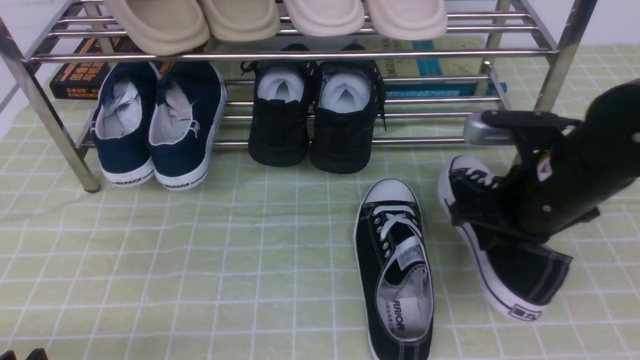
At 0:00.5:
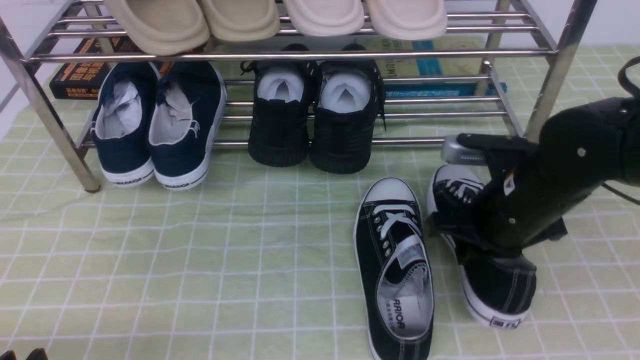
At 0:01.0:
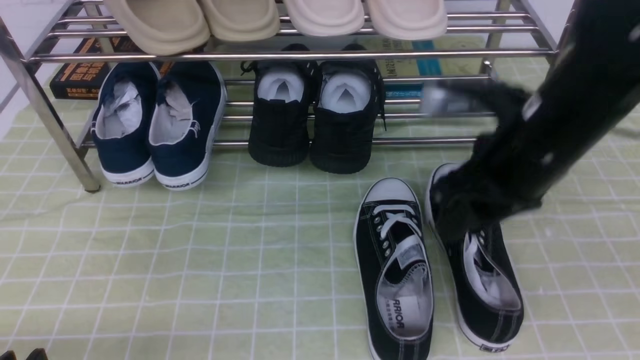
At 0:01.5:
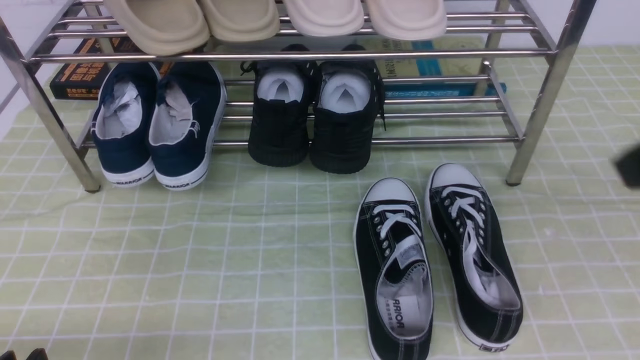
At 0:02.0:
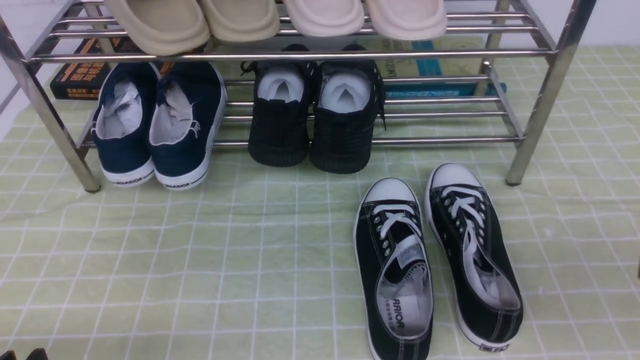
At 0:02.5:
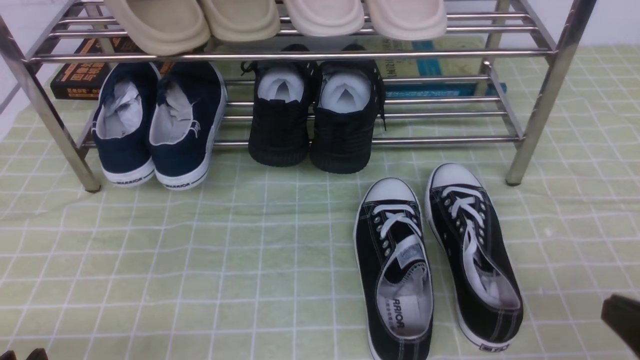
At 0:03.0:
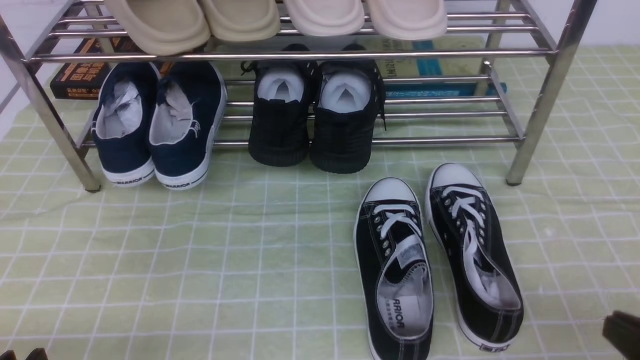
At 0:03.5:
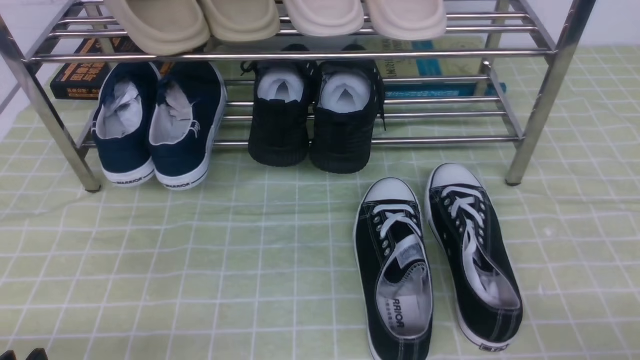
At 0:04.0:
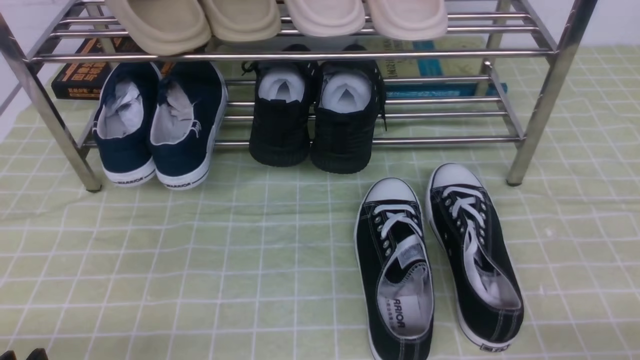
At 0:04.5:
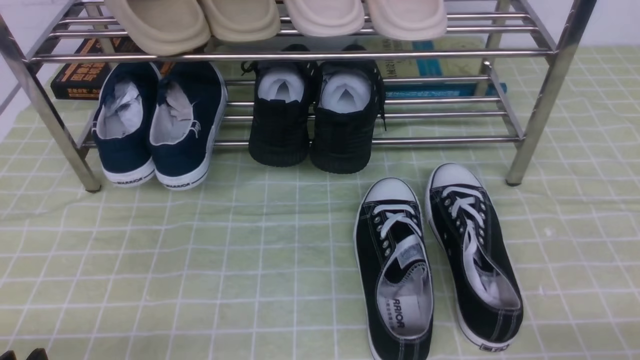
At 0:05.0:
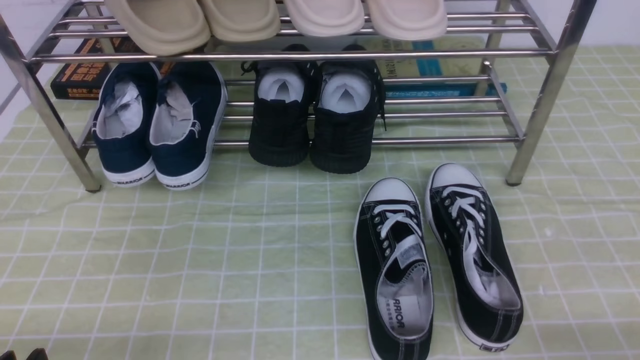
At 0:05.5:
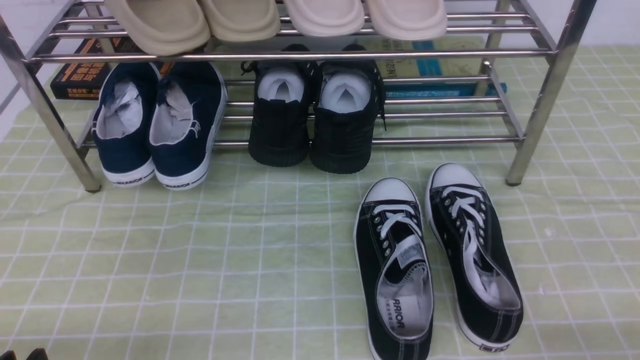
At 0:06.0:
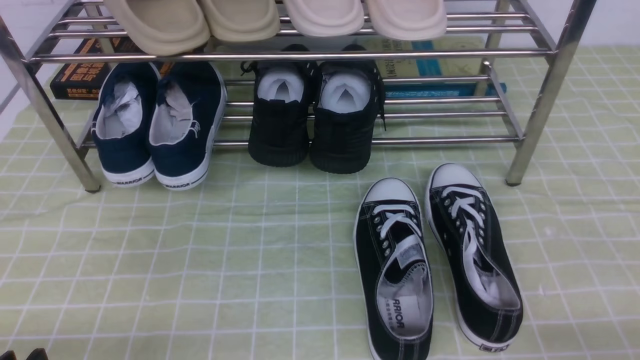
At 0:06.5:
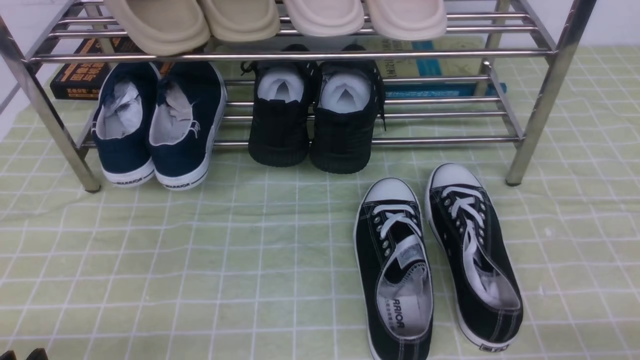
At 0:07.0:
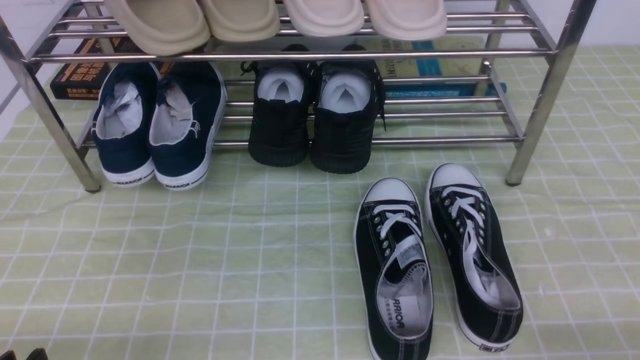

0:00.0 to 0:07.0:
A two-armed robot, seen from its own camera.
0:00.0 to 0:02.0: The right gripper is displaced backward, to the right and upward by roughly 20 cm, and opens, then closes once more.
0:02.0 to 0:03.5: The right gripper heads downward, covering approximately 15 cm.
0:05.0 to 0:07.0: Neither gripper changes place.
